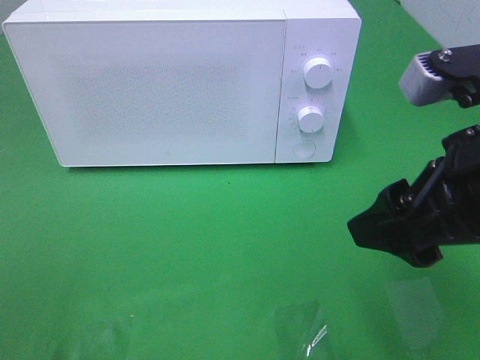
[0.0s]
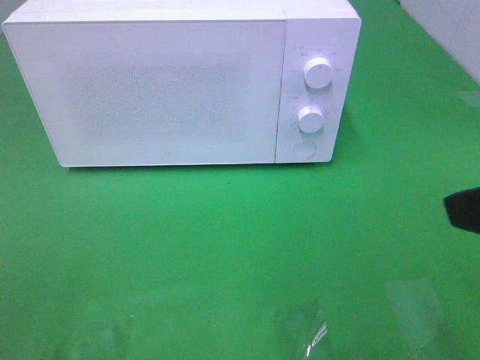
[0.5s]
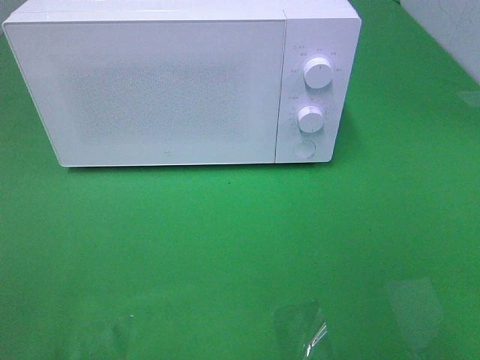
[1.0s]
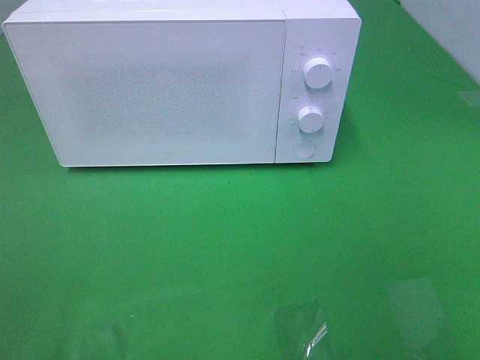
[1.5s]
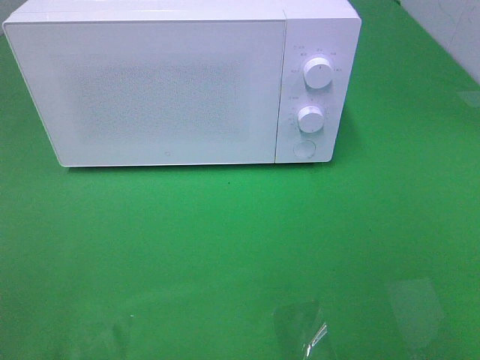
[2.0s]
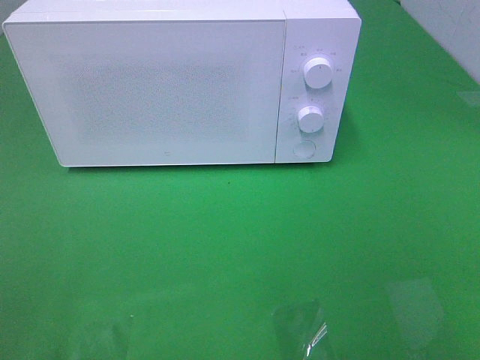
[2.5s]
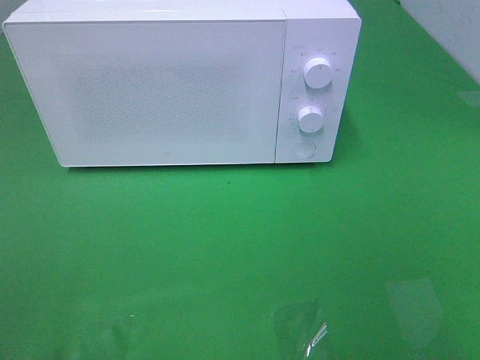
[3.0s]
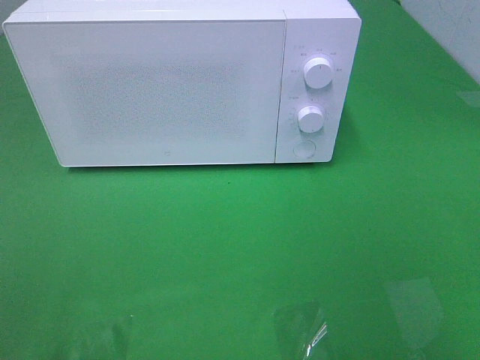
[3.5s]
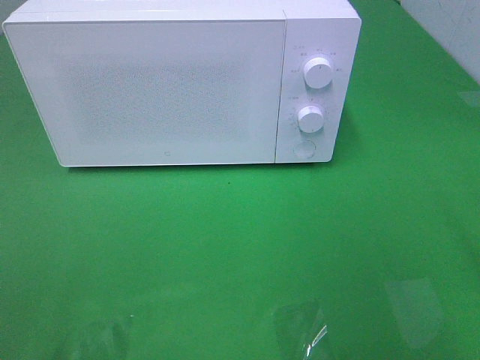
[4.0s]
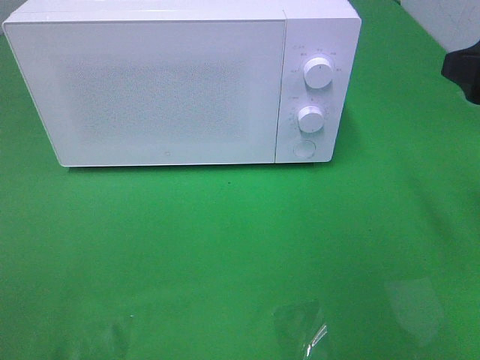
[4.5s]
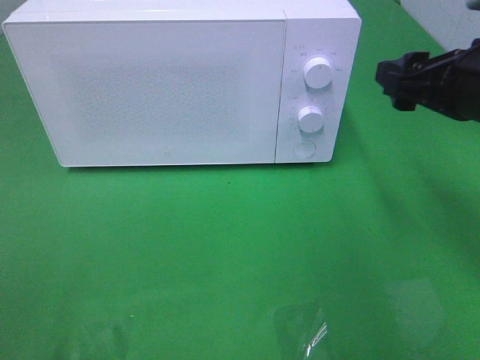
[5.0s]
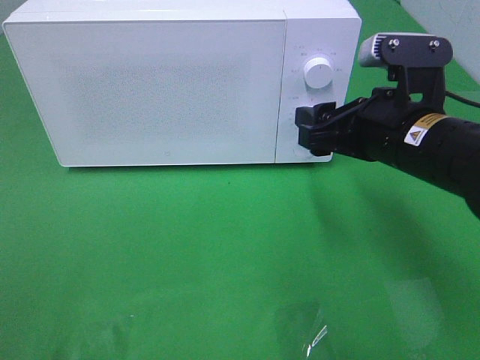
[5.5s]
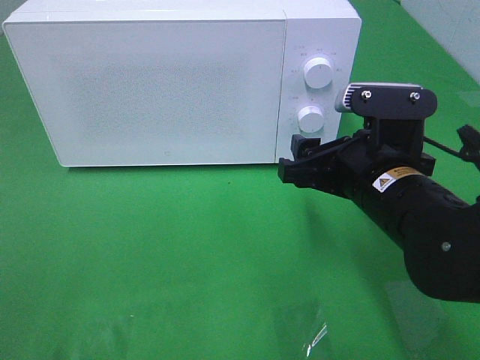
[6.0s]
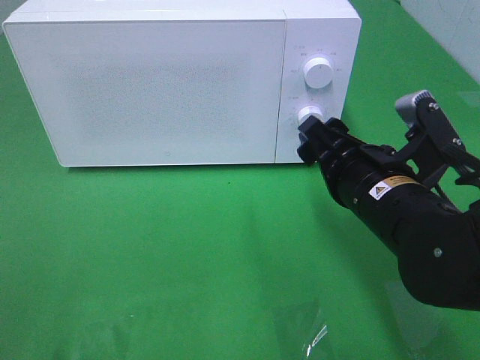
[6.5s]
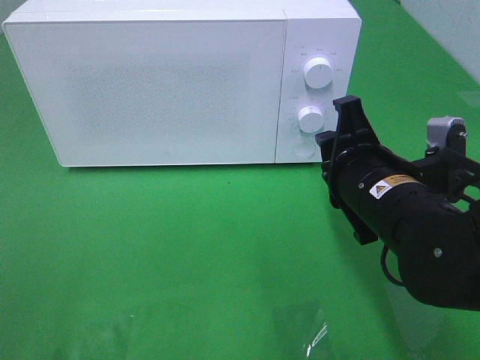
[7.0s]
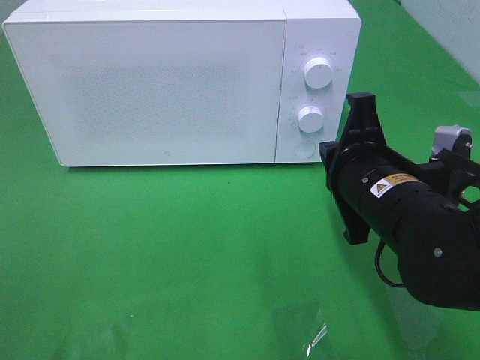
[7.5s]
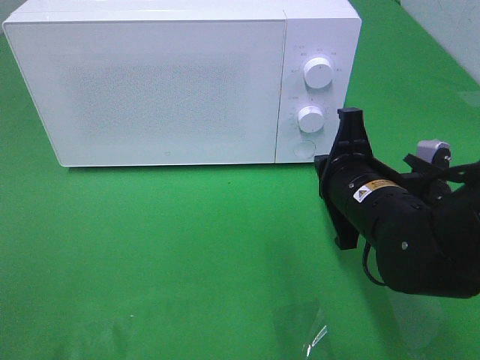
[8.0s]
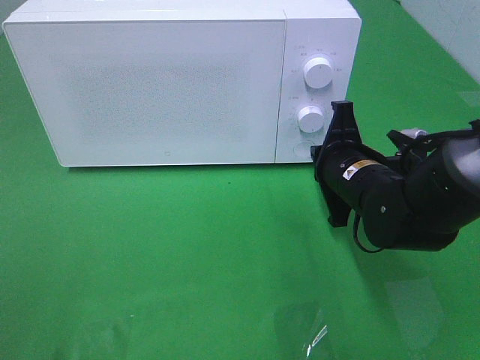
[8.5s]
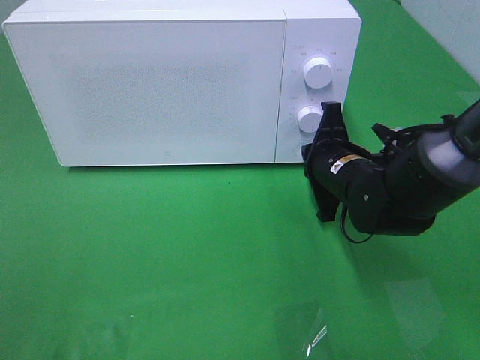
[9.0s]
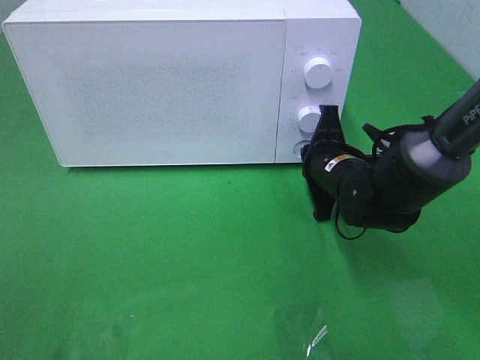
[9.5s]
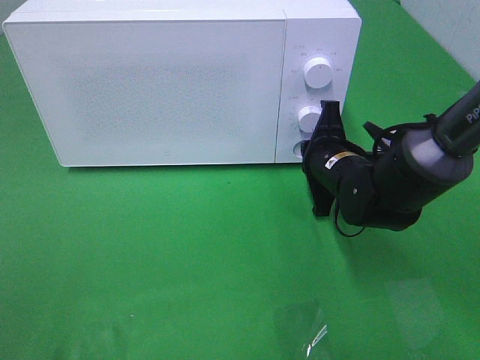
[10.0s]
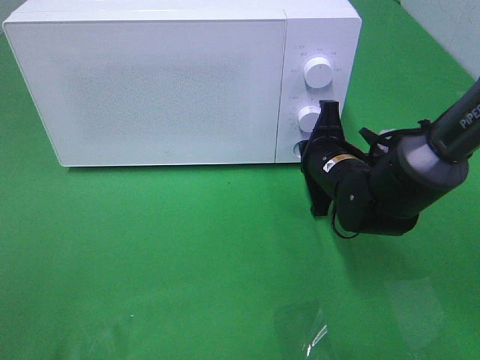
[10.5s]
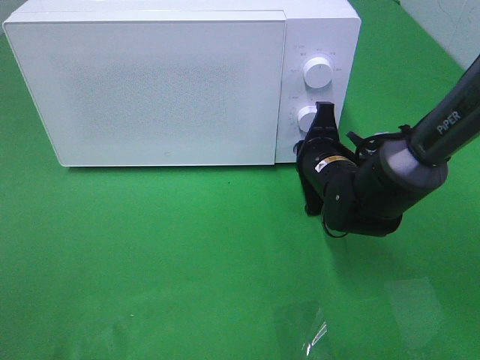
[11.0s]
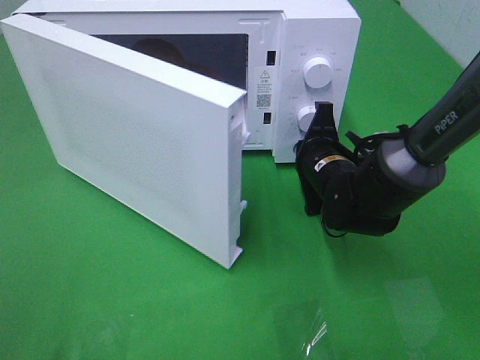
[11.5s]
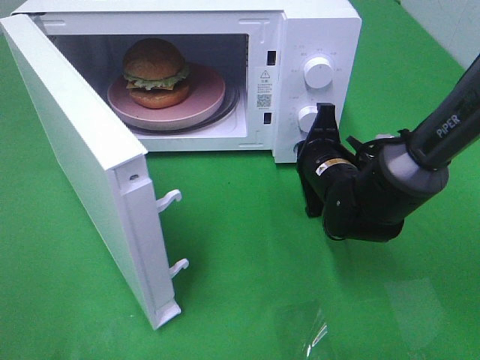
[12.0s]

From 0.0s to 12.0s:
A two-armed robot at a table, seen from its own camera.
Task of the whole recording: Heat the burger.
From 0.0s to 2.0s: The right gripper travels backward and to the right by roughly 20 cm.
From 4.0s to 6.0s: The right gripper travels downward, to the left and forward by roughly 20 cm.
From 6.0s to 8.0s: The right gripper closes up.
From 8.0s to 10.0s: The right gripper shifts about 10 cm forward.

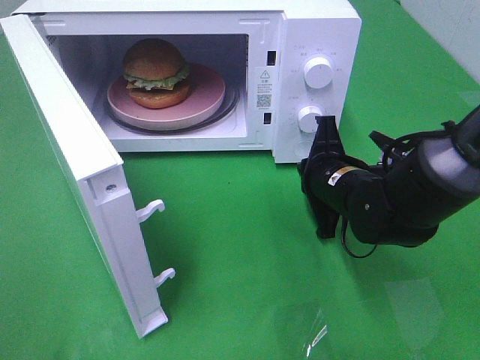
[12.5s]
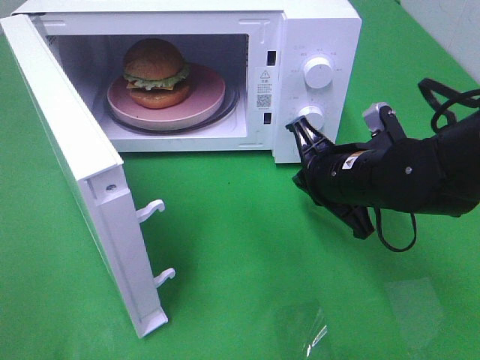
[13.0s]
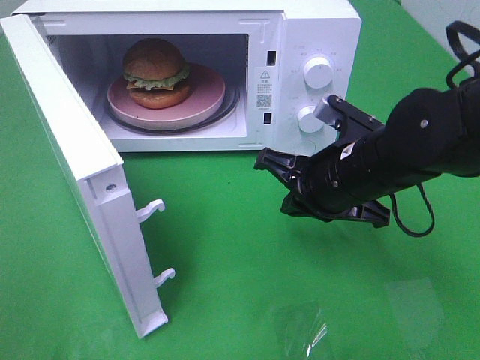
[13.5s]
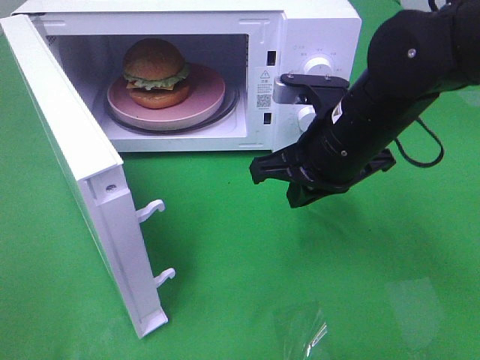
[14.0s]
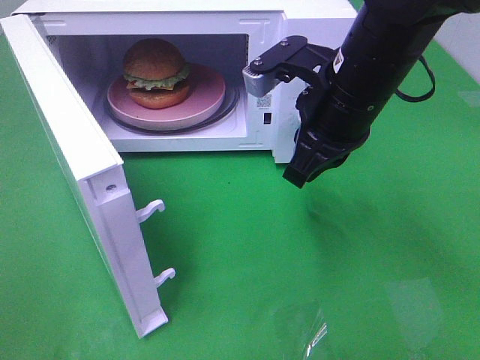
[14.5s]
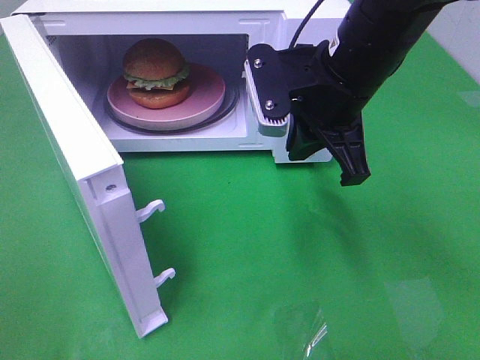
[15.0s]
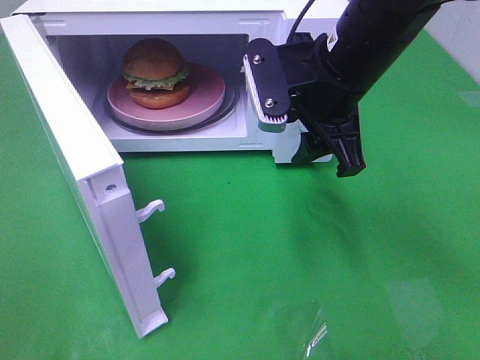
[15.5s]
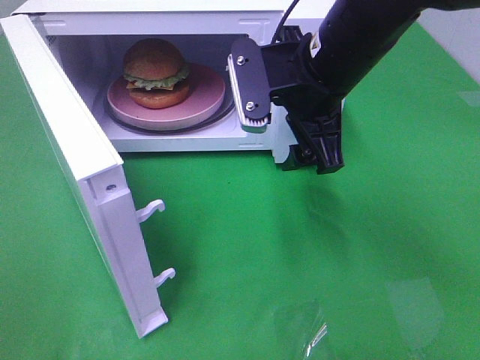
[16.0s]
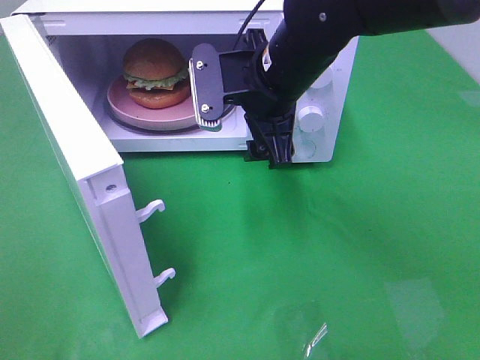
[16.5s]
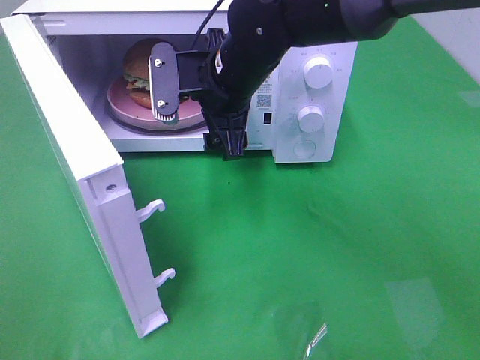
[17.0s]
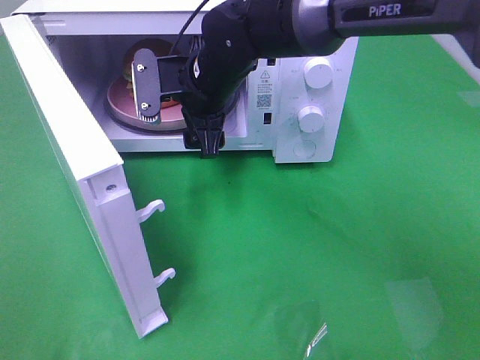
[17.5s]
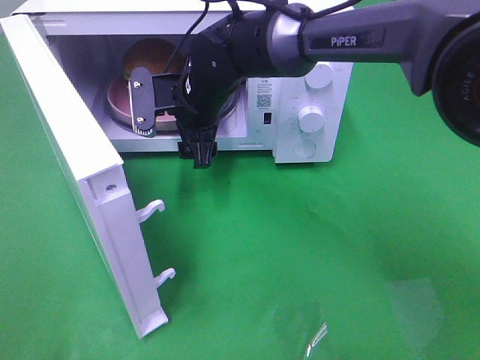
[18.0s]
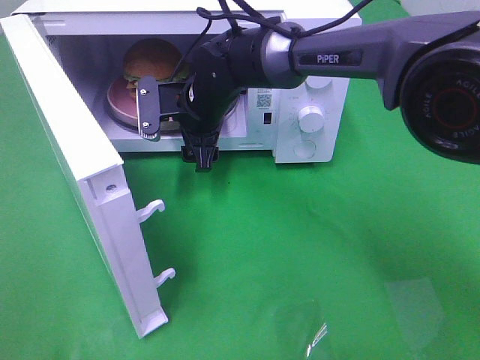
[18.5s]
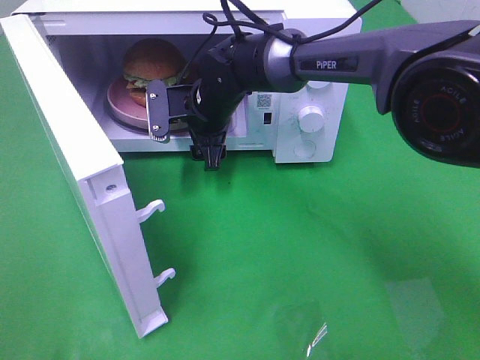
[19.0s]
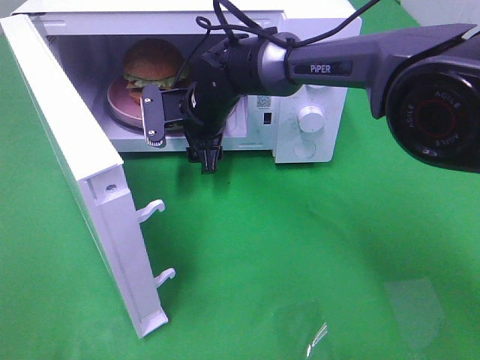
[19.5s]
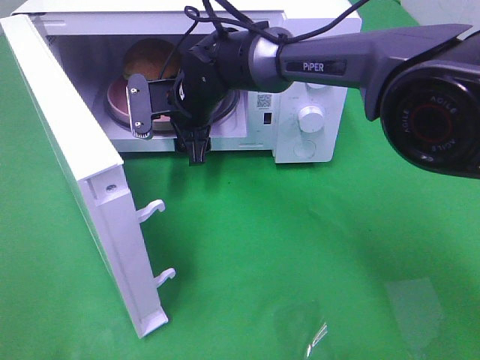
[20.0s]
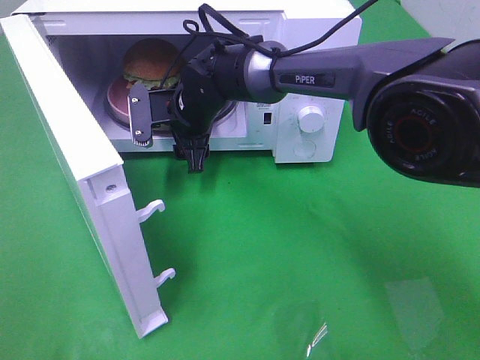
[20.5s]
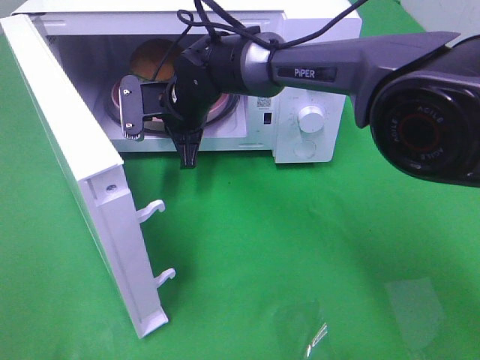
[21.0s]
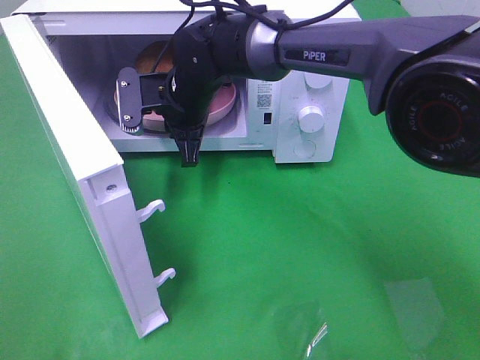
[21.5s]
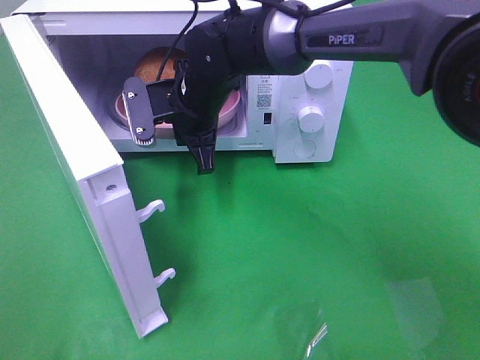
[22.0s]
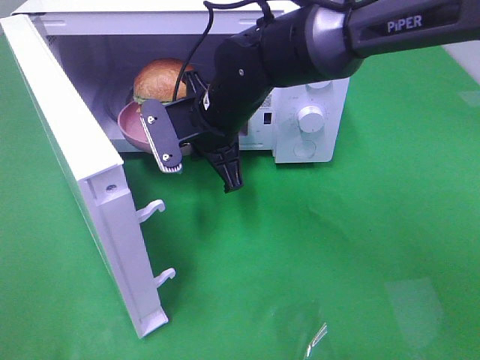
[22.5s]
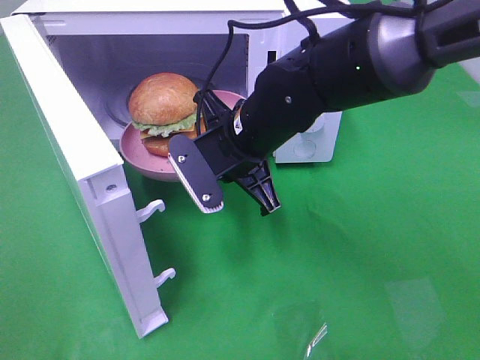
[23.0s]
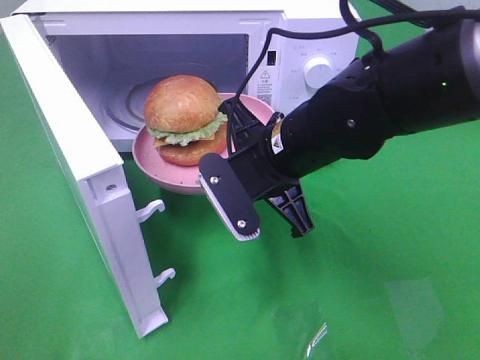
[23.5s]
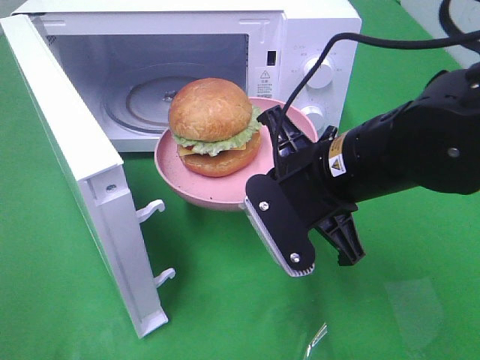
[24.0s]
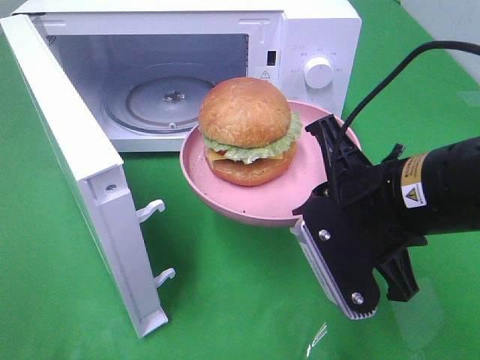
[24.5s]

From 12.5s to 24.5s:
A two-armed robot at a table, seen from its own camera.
Task of the whole recording: Heat the burger.
Step, from 13.0s to 21.0s: Right hand: grab the plate with the hamburger.
From 12.5s to 14.5s: The right gripper travels upward by roughly 15 cm.
From 14.5s to 16.5s: The right gripper moves to the left, roughly 5 cm, and opens.
From 16.5s to 18.5s: The right gripper is displaced downward, forward and to the left by roughly 15 cm.
From 18.5s to 20.5s: The grippers stay close to where they were, moving slightly.
From 20.5s to 22.5s: The right gripper goes some 5 cm backward, and closes up.
From 22.5s to 24.5s: The right gripper shifts approximately 20 cm backward and to the right.

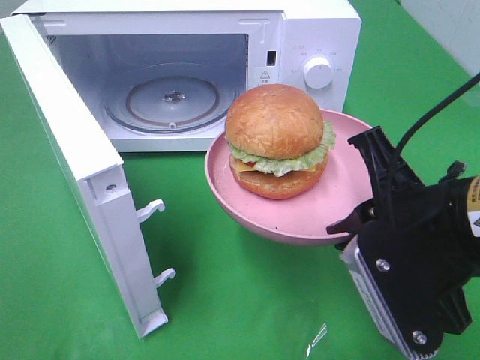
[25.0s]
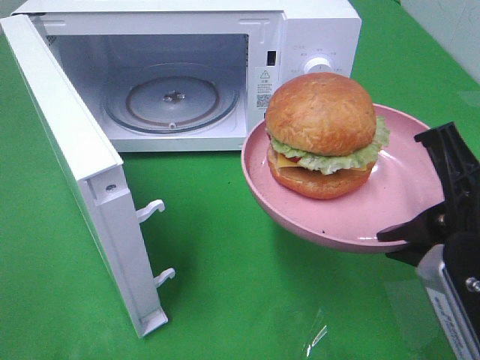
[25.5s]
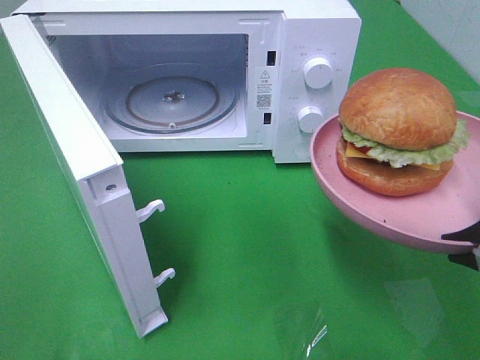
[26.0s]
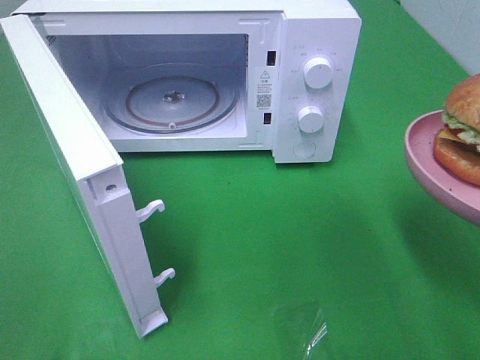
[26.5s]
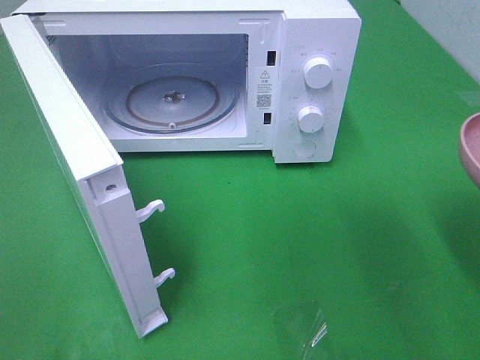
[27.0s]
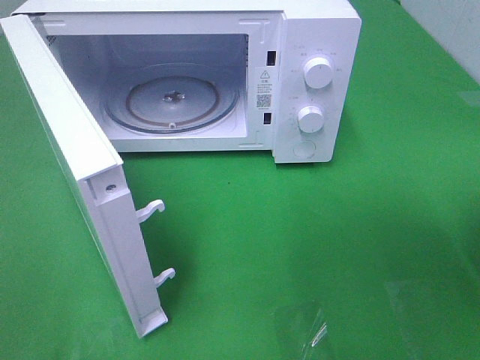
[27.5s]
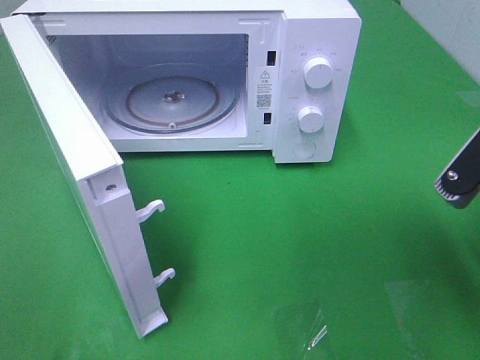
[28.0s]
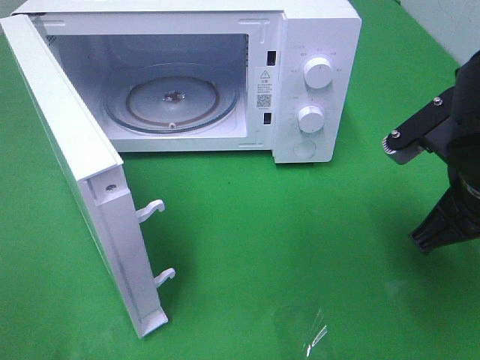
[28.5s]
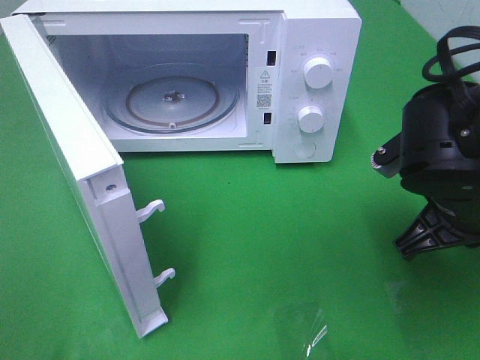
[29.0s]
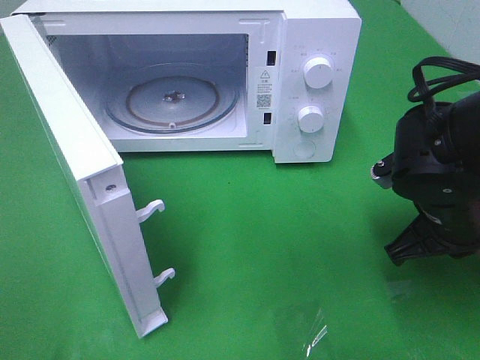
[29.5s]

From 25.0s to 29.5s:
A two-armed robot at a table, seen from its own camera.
Task of the whole recording: Heat the burger.
From 25.0s to 27.0s: The right gripper heads to the right, covering some 10 cm.
From 27.0s to 29.5s: The right gripper heads forward, downward and to the left, covering approximately 20 cm.
